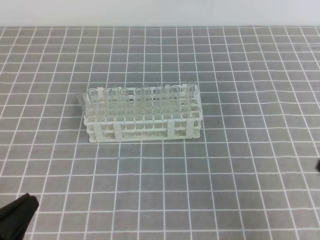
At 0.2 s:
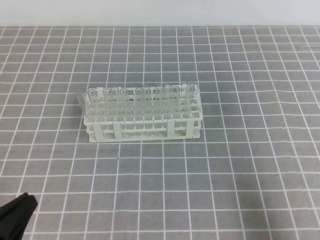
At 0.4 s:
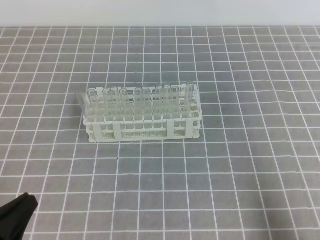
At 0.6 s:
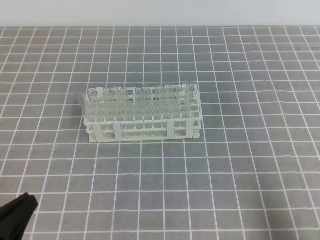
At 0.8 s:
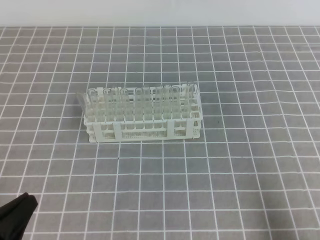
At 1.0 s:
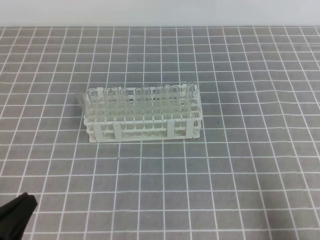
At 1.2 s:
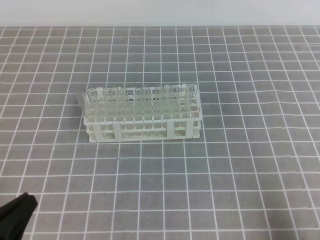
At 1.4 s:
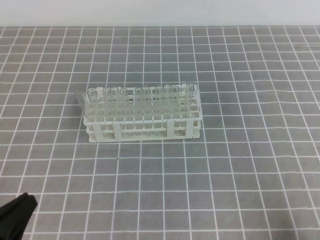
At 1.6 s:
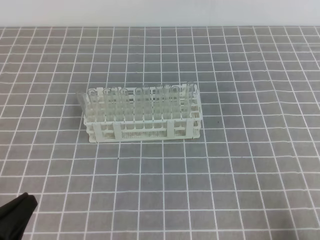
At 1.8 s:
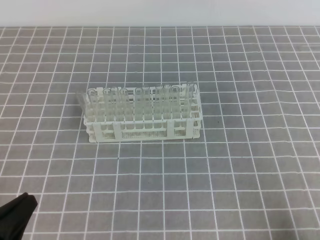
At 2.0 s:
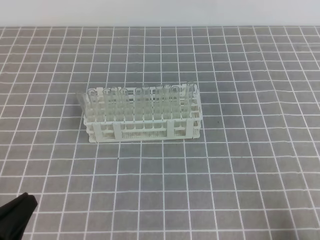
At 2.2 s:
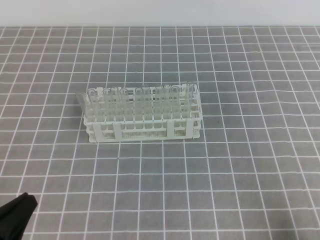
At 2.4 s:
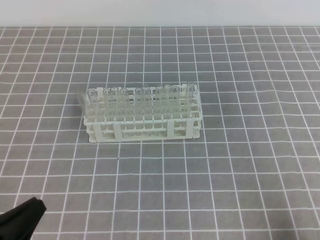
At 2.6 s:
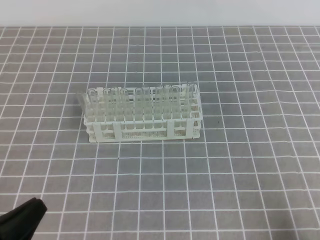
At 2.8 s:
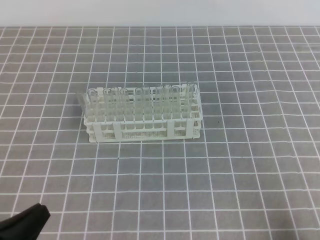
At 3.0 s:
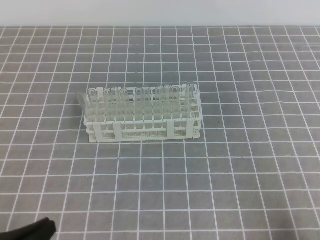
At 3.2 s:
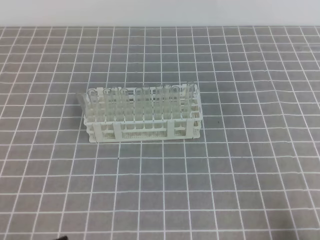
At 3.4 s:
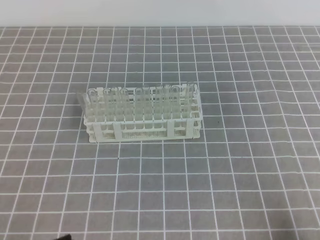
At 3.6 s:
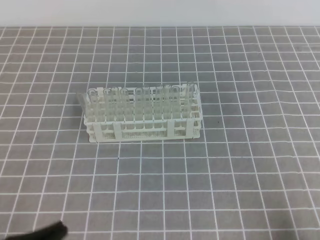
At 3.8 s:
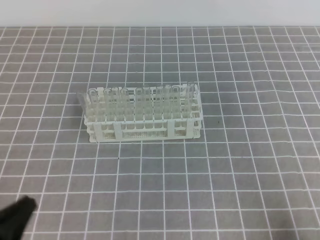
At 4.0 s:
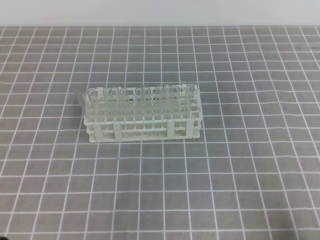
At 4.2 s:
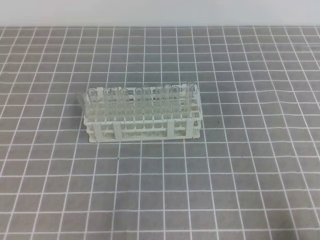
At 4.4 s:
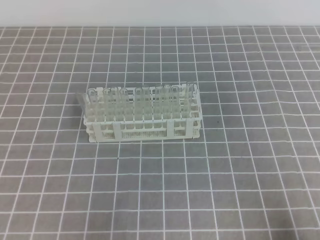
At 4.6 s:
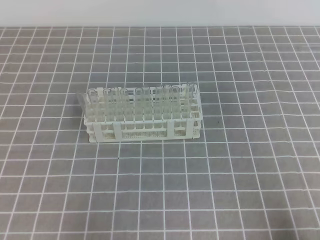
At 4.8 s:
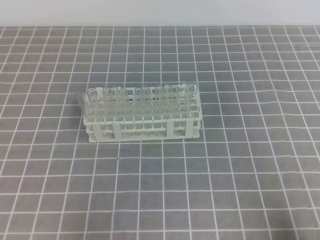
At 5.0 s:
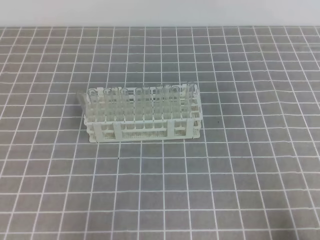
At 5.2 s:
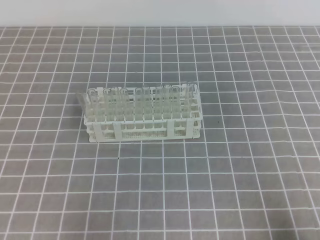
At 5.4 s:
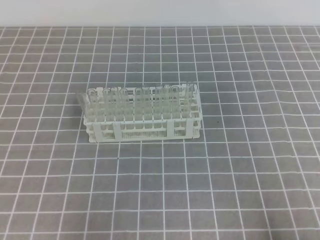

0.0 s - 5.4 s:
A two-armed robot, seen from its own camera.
0.0 s - 1.4 s: The right gripper heads downward, covering about 5 cm.
1.4 s - 2.8 s: The grippers stay close to where they were, moving slightly.
